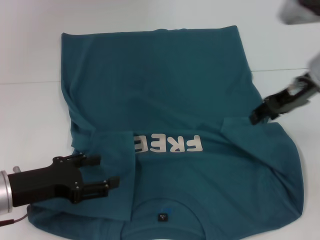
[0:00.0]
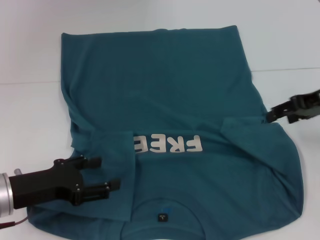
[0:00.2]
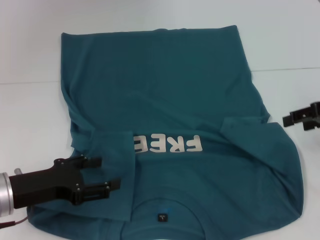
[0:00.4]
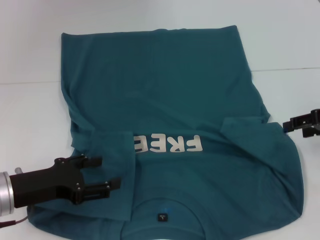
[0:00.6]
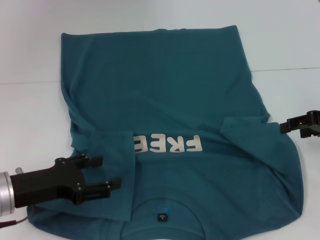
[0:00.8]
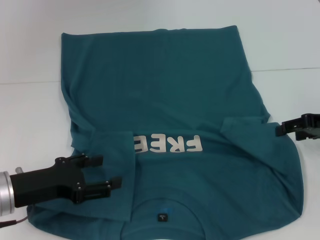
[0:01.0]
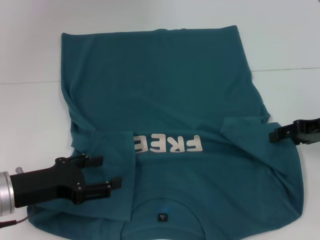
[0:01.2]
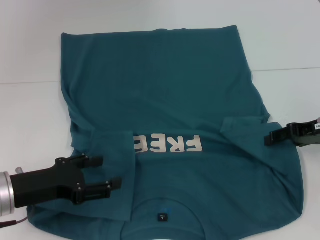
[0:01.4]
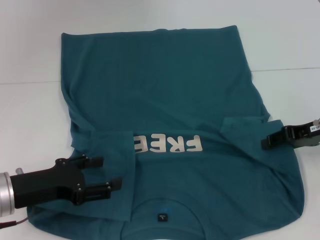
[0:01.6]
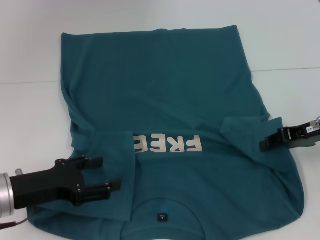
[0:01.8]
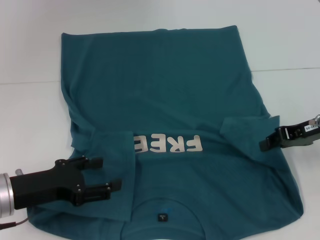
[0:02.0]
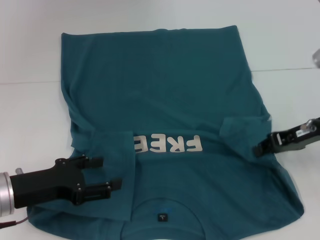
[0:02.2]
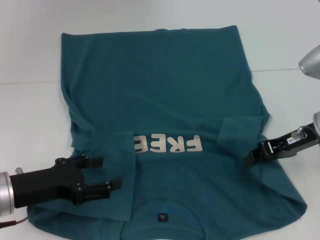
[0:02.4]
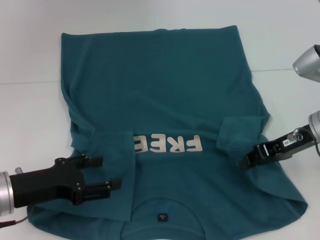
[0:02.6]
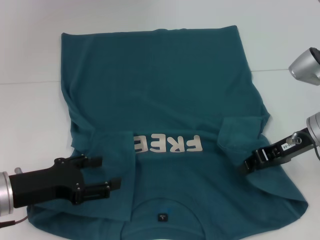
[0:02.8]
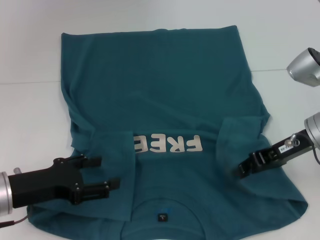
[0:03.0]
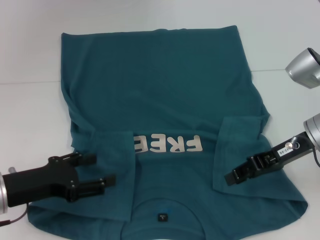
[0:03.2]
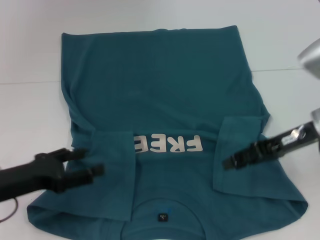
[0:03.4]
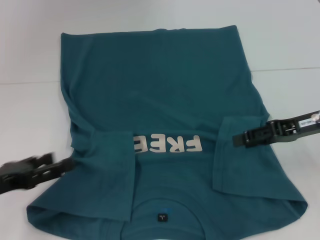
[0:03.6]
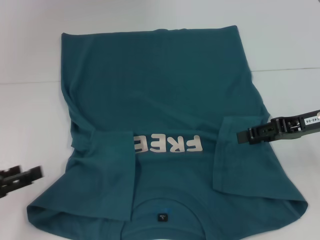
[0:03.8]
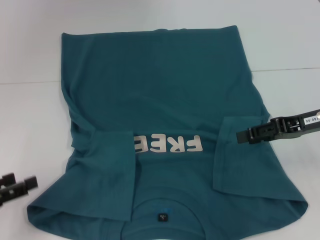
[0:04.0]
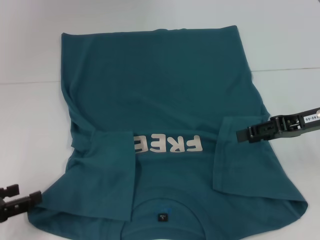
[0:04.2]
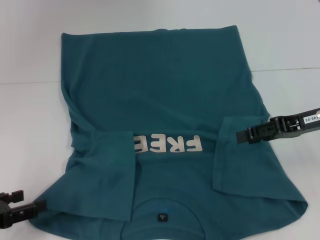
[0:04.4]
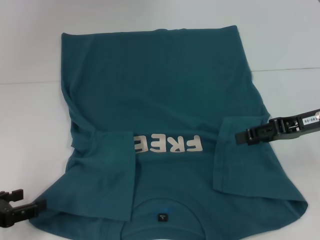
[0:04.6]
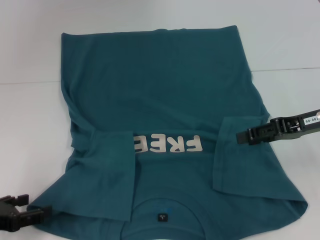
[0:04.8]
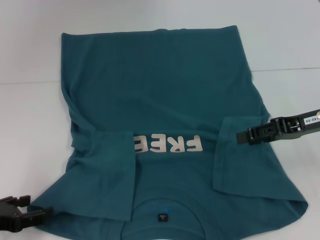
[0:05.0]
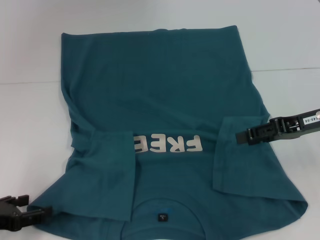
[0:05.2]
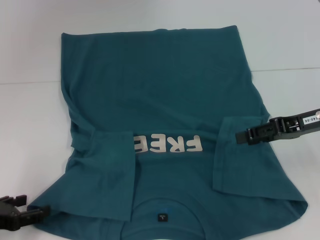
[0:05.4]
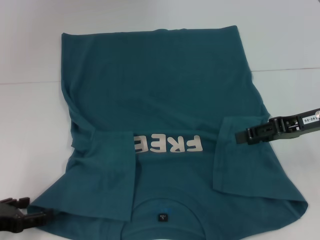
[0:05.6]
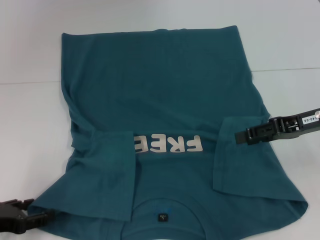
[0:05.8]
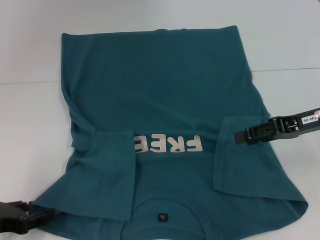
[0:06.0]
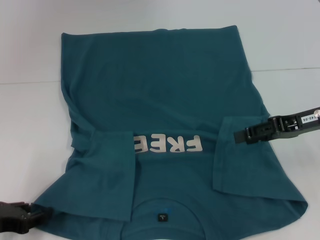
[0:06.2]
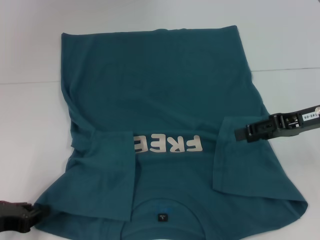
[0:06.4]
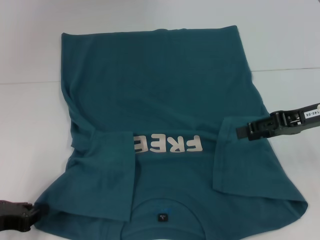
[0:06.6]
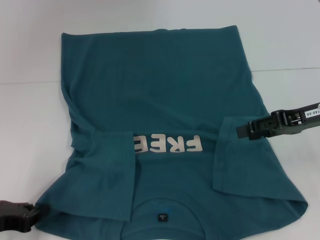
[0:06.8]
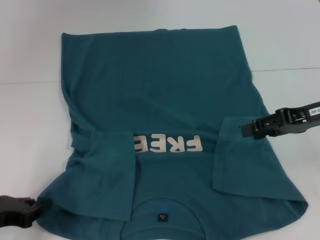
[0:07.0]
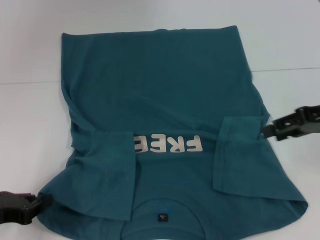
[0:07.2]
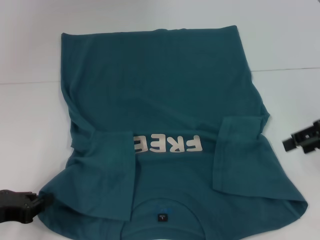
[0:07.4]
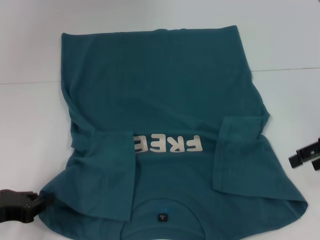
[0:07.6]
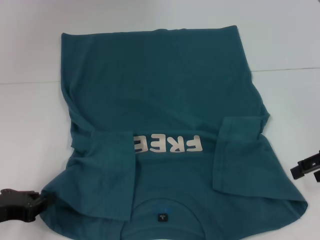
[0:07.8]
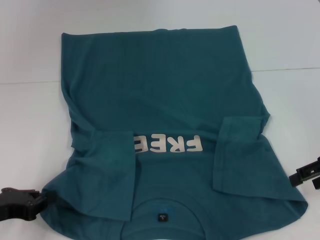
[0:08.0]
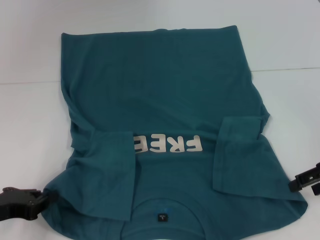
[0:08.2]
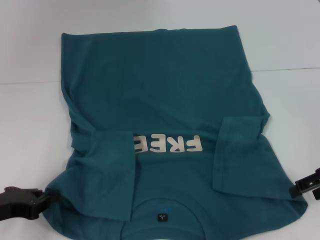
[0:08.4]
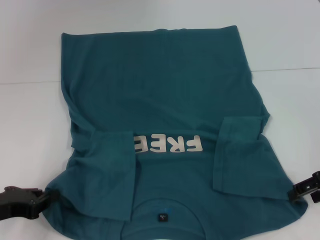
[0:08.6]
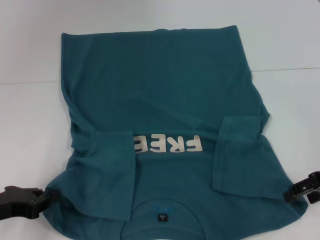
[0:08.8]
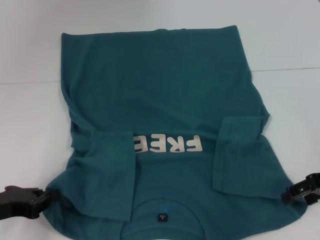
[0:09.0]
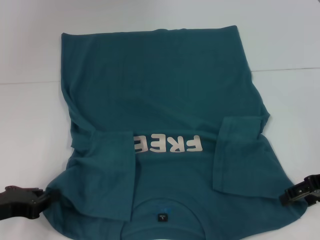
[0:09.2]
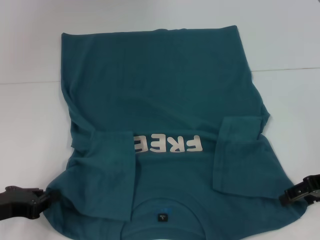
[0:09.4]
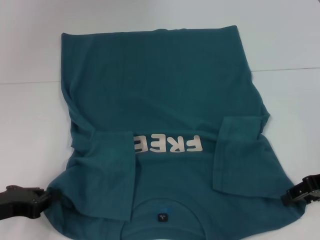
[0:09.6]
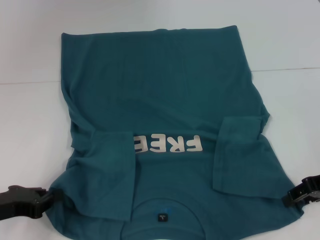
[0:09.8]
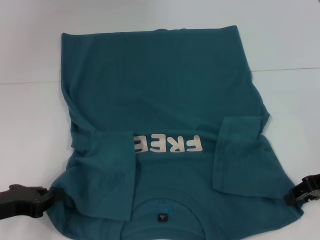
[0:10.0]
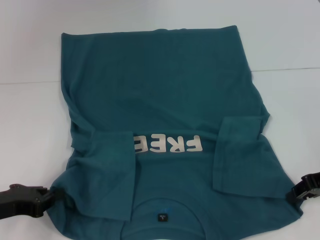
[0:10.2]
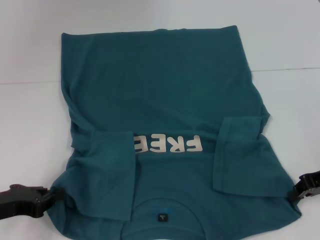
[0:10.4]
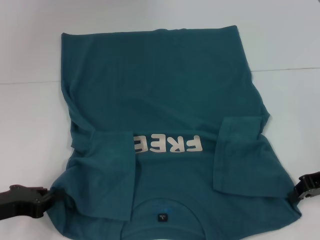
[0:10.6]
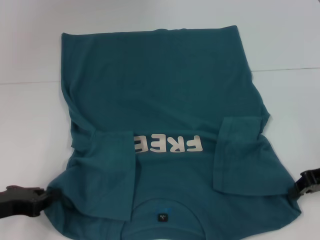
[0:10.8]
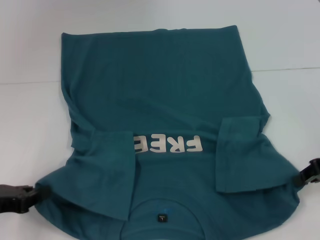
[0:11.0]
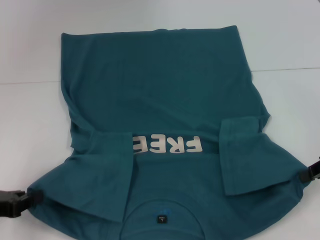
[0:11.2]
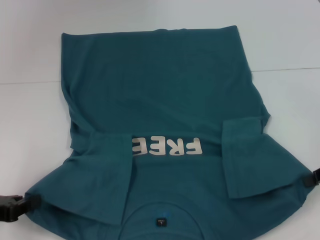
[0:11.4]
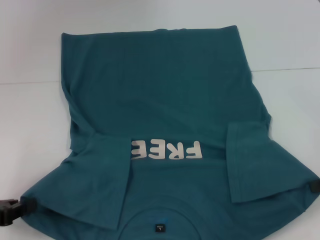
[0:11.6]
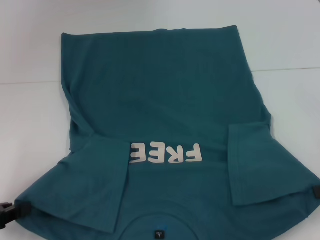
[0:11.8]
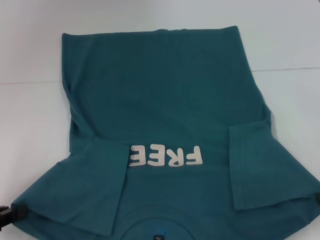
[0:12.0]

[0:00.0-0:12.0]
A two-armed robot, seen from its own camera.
Step, 0:00.0 to 0:03.0: Fold the bottom right sleeve to the right.
Step, 0:03.2 to 0:06.6: Grab the bottom left corner with your left hand.
Step, 0:06.8 to 0:10.2: Grab the bottom right corner with your right hand.
0:00.0 to 0:01.6: The right gripper goes approximately 10 cm downward and to the right.
0:01.6 to 0:03.0: The right gripper goes roughly 5 cm to the left, and closes up.
0:03.0 to 0:04.4: The left gripper moves to the left, roughly 10 cm; the right gripper opens its fingers.
0:04.4 to 0:06.0: The grippers make only small movements.
0:06.0 to 0:07.6: The right gripper travels to the right by some 5 cm. The left gripper closes its fingers.
0:07.6 to 0:09.0: The right gripper goes about 5 cm downward.
0:09.0 to 0:10.4: The right gripper closes its fingers.
0:10.4 to 0:12.0: The right gripper goes about 10 cm to the right and backward. Meanwhile the left gripper is displaced to the left by some 5 cm.

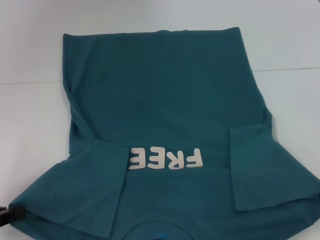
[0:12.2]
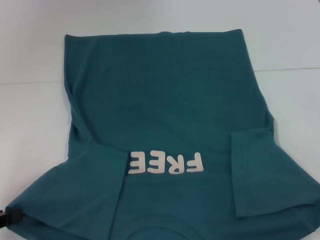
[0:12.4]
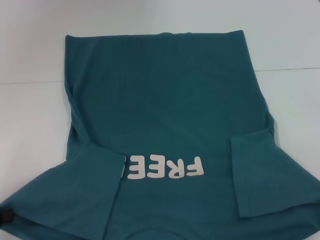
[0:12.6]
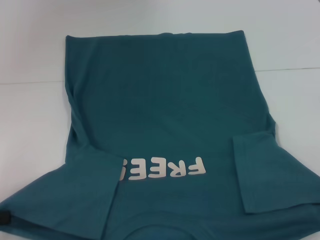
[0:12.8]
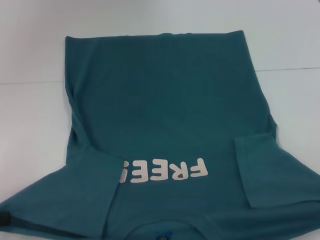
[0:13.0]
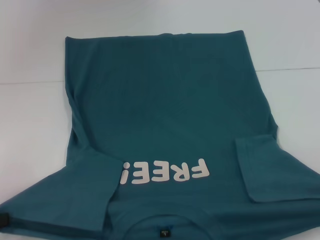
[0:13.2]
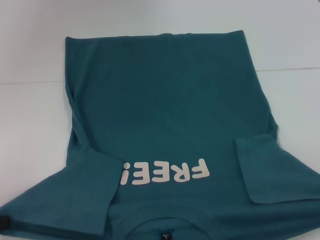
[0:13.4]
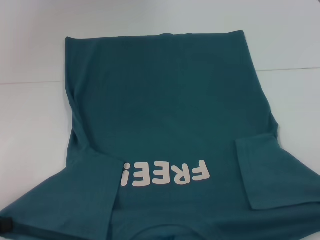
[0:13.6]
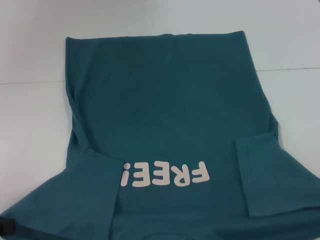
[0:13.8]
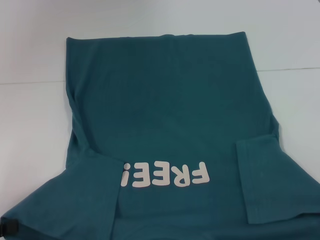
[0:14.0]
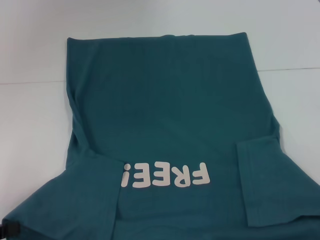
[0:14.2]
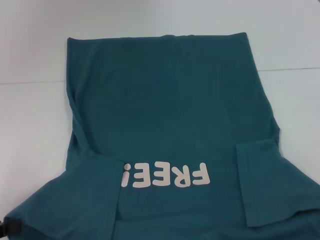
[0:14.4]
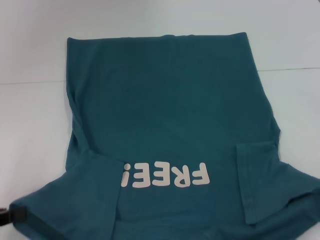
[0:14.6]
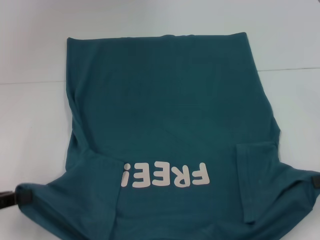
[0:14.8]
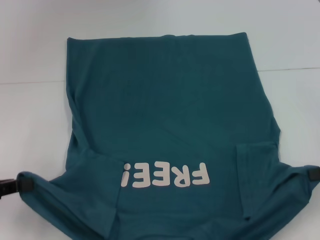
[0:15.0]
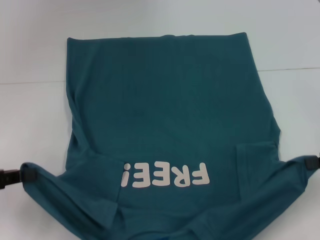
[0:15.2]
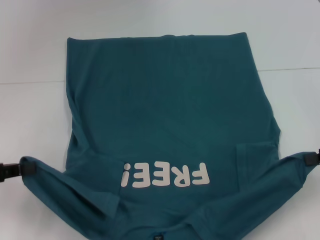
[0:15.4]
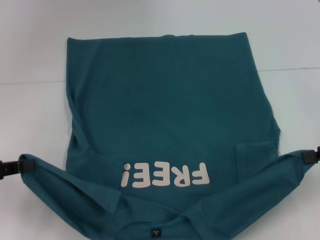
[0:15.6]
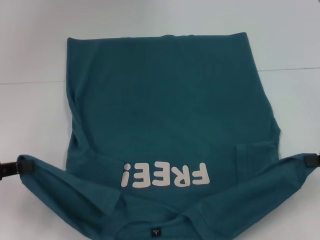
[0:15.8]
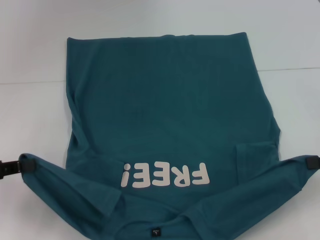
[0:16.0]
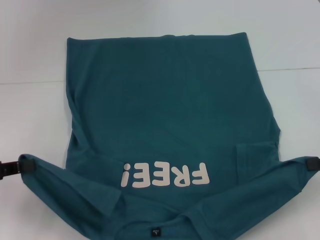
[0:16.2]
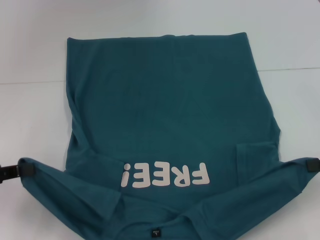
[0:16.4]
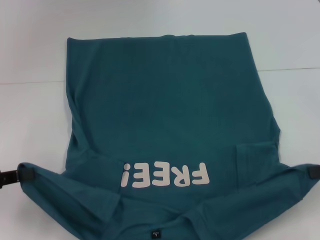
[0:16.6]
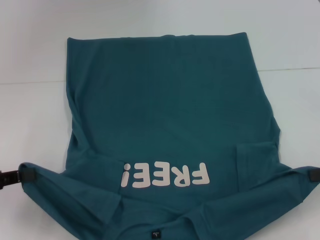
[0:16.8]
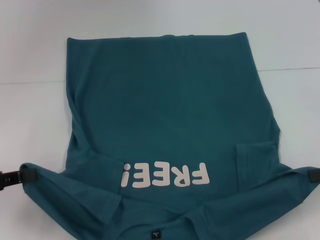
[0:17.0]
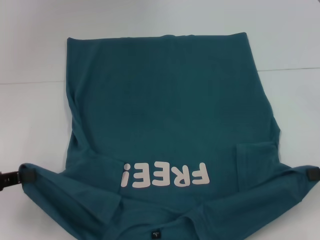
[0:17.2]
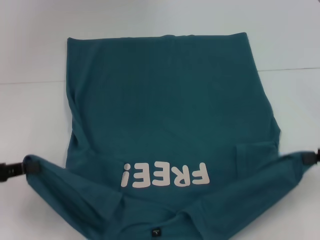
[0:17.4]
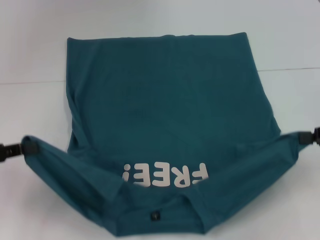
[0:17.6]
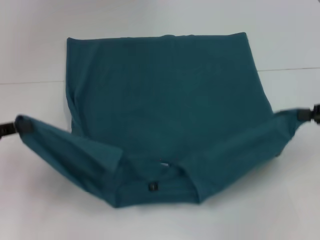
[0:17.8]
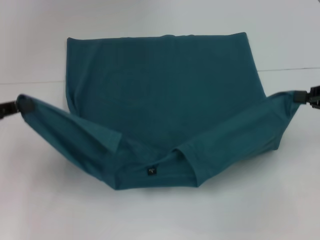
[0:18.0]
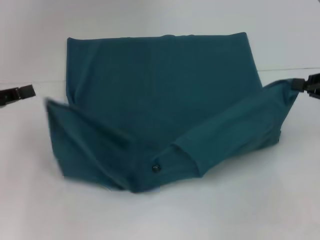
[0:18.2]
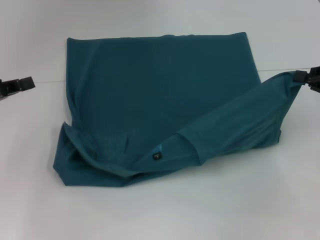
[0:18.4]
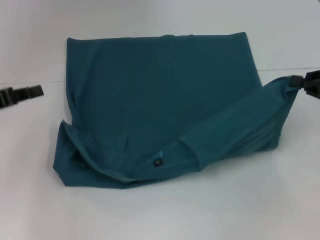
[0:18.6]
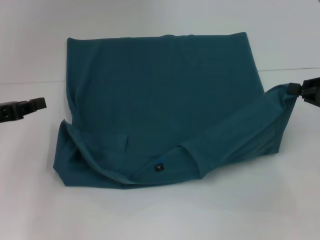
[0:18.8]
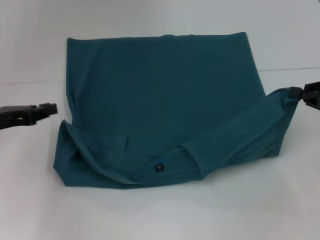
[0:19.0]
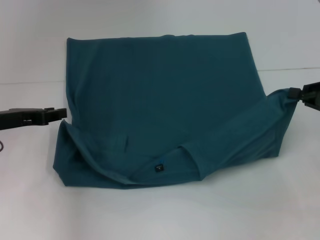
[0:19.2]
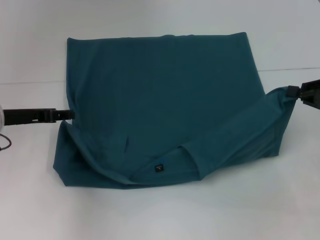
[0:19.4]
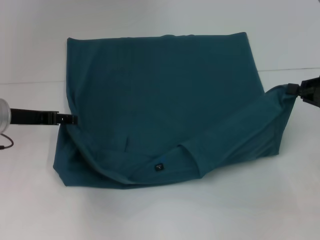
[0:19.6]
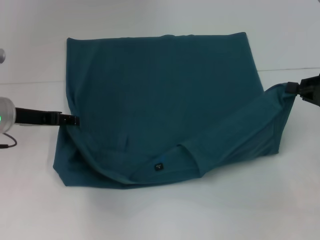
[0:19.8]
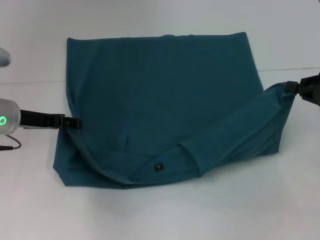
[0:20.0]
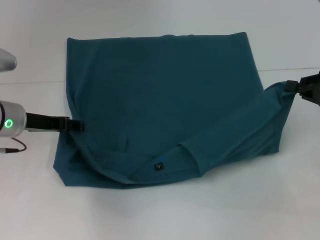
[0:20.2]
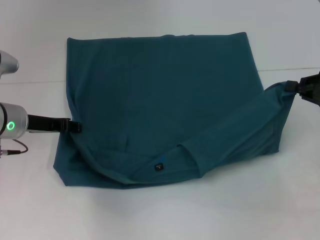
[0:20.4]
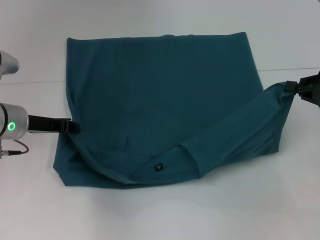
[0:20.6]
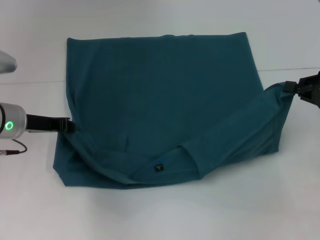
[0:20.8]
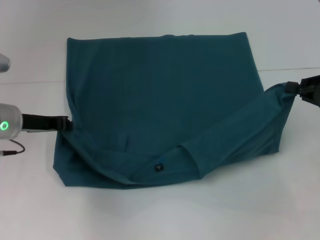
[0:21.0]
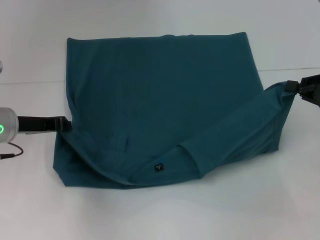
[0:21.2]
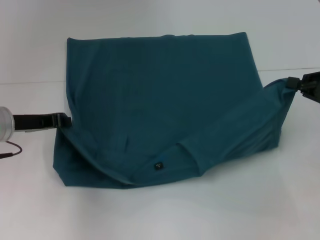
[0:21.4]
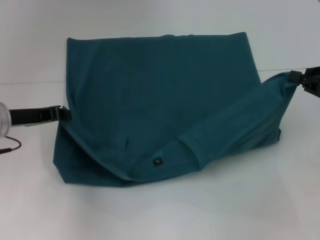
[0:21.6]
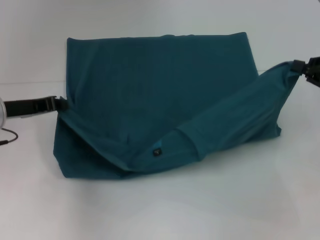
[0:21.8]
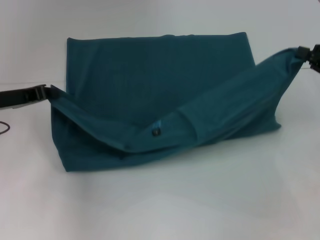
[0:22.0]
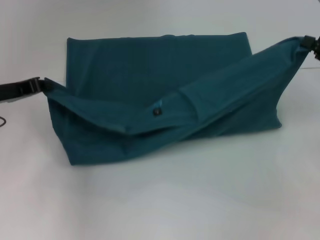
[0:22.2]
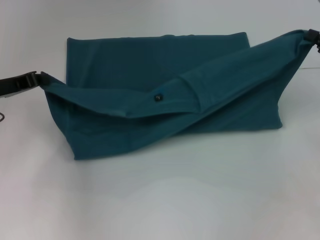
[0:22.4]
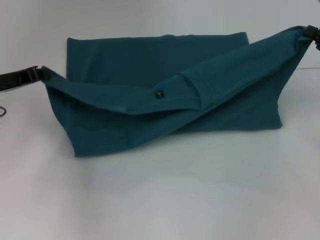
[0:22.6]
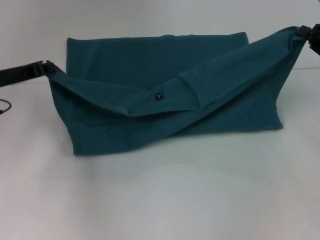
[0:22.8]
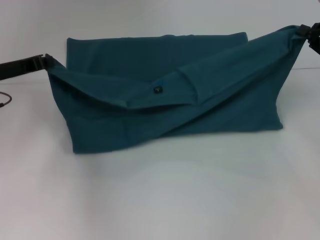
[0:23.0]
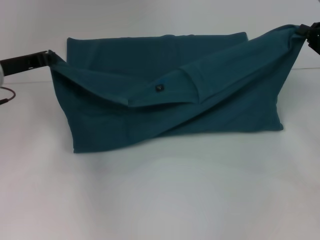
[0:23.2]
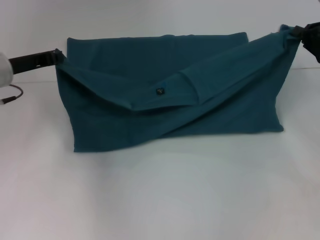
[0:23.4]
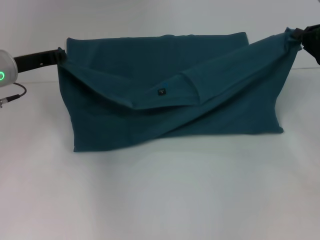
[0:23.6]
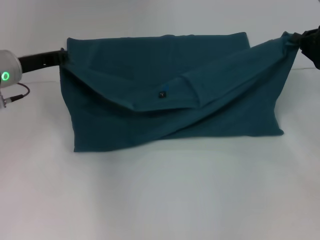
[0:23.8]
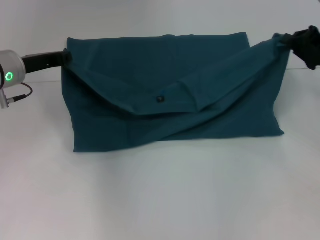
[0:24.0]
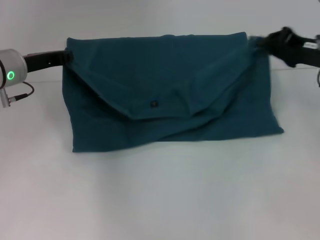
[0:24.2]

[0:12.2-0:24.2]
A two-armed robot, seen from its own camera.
0:12.2 to 0:13.8: The grippers move only a little.
0:13.8 to 0:15.2: The left gripper is displaced forward by about 5 cm. The right gripper moves about 5 cm.
0:15.2 to 0:16.6: The grippers stay close to where they were, moving slightly.
0:16.6 to 0:18.2: The grippers both shift forward by about 5 cm.
0:18.2 to 0:19.8: The left gripper travels to the right and forward by approximately 10 cm, and opens up.
0:19.8 to 0:21.2: The left gripper closes.
0:22.6 to 0:24.2: The left gripper ends up about 5 cm from where it was. Meanwhile the right gripper goes some 5 cm to the left.
